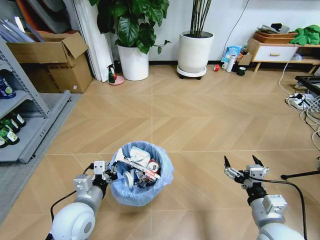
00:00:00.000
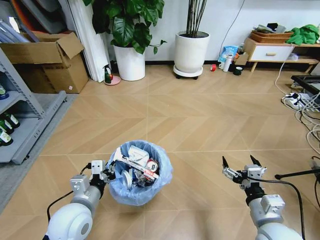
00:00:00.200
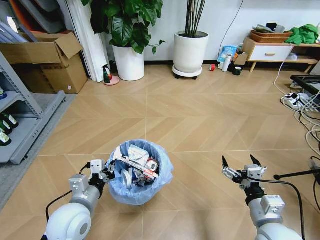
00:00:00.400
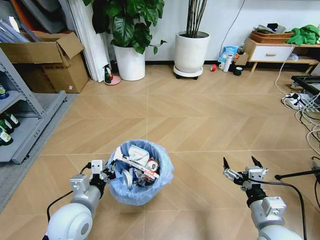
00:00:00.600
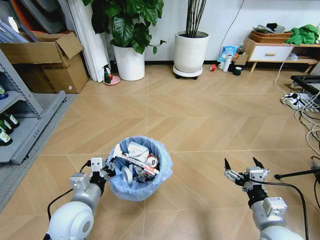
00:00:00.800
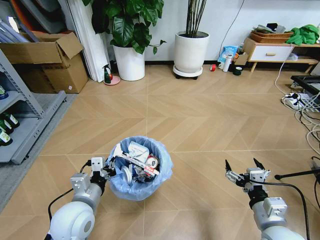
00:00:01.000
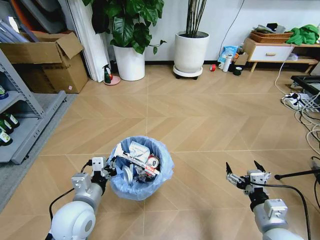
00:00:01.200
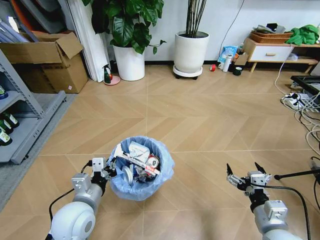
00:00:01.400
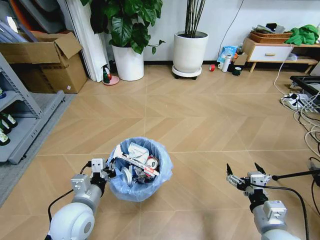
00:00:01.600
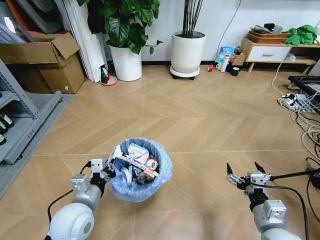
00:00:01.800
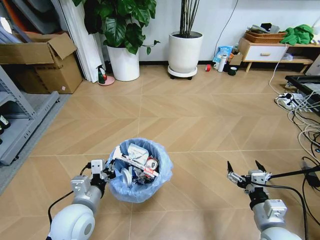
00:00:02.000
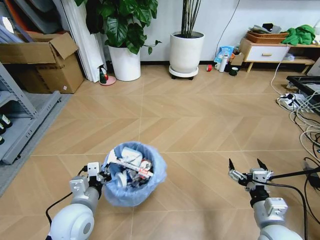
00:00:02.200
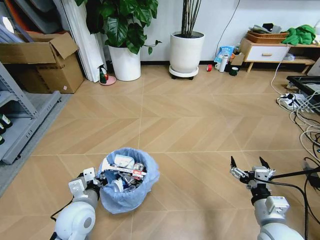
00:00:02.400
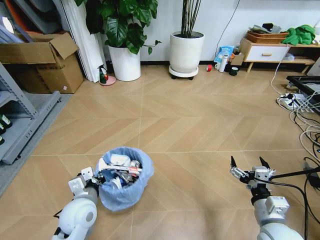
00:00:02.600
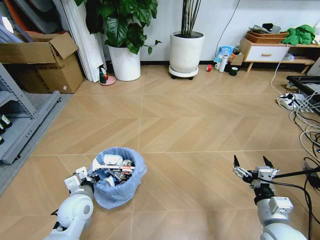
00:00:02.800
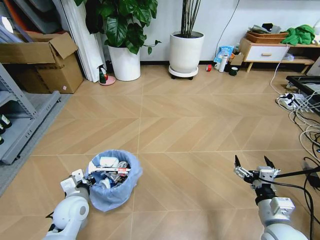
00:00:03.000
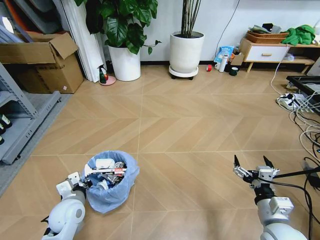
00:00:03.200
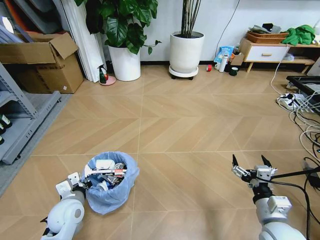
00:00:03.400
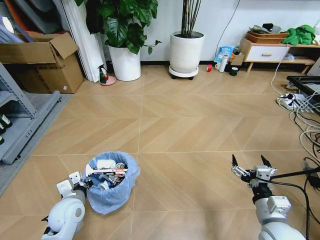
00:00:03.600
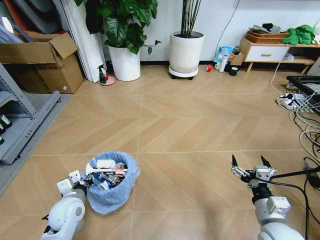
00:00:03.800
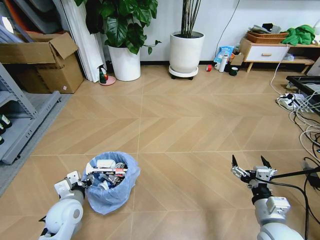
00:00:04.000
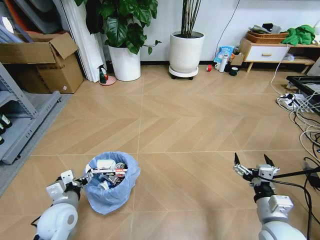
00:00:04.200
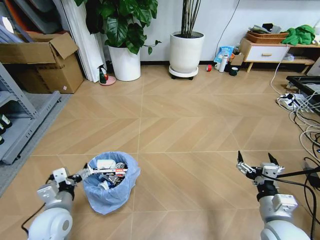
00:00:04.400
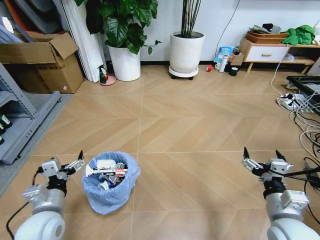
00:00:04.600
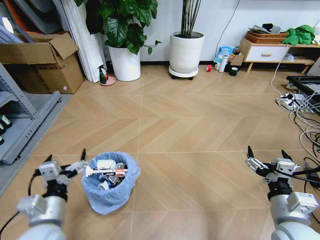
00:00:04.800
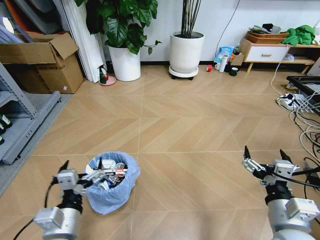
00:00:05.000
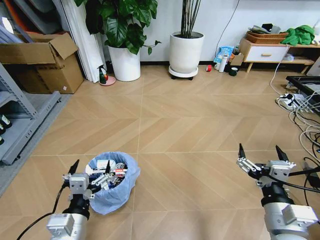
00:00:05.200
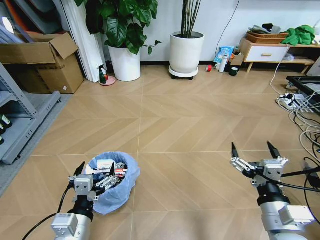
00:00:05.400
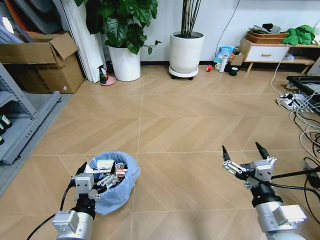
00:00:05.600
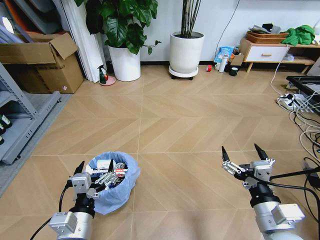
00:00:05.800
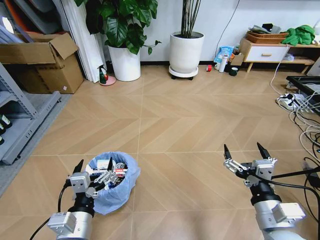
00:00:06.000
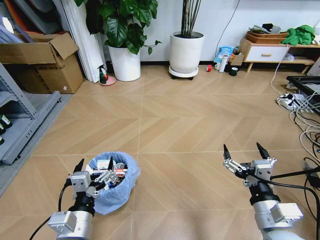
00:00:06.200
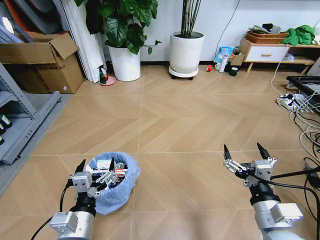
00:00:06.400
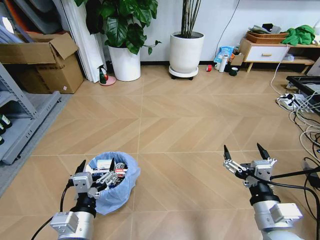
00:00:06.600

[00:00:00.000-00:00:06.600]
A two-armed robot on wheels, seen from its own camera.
Task of the whole recording: Pick up the trash bin and place the garbage on the floor into it.
00:00:01.600 to 00:00:03.200: The left gripper travels downward and to the left by roughly 10 cm.
00:00:03.200 to 00:00:05.000: The right gripper is displaced upward by some 10 cm, while the left gripper travels backward, upward and to the right by approximately 15 cm, and opens its fingers.
00:00:05.000 to 00:00:06.600: There are only small adjustments of the grippers.
